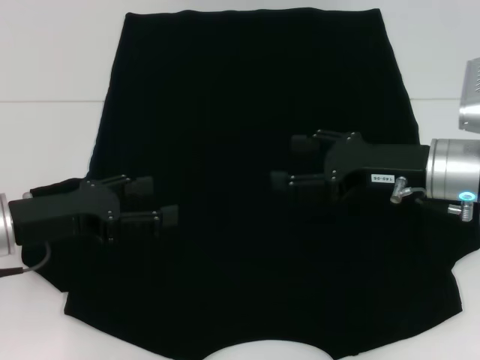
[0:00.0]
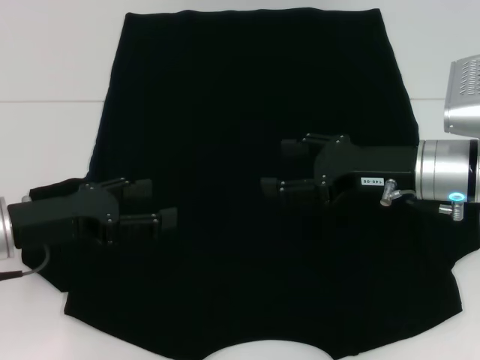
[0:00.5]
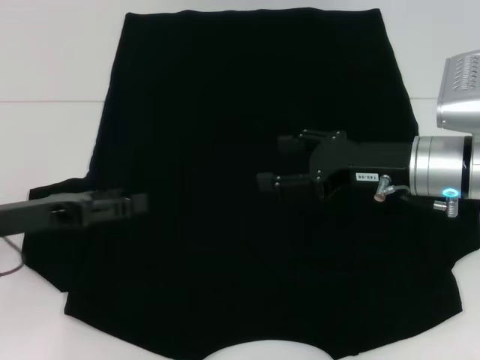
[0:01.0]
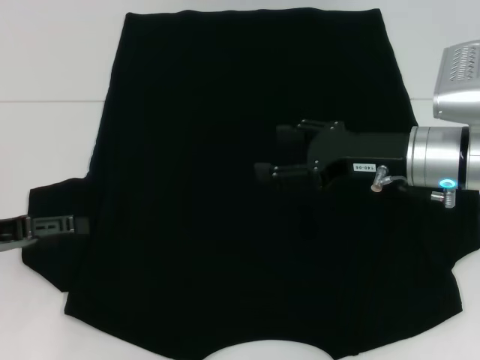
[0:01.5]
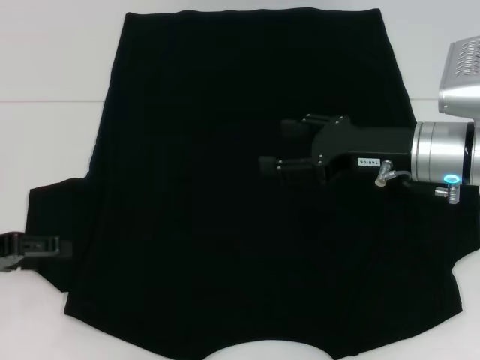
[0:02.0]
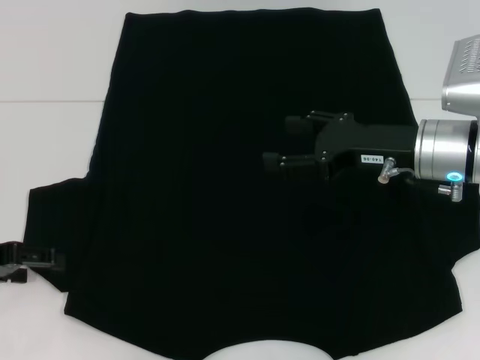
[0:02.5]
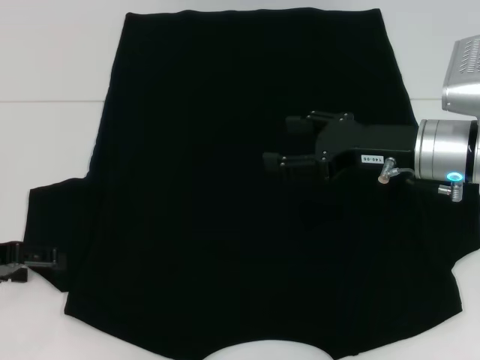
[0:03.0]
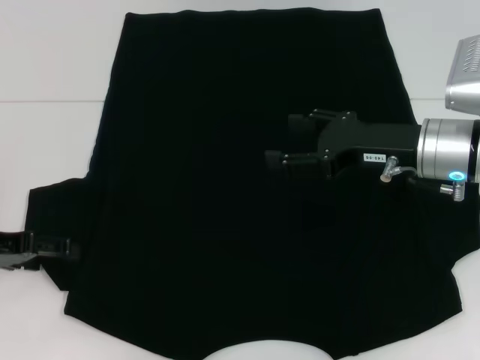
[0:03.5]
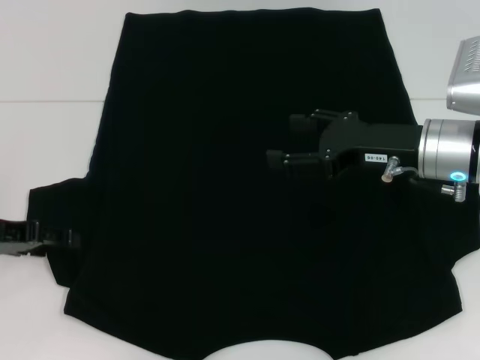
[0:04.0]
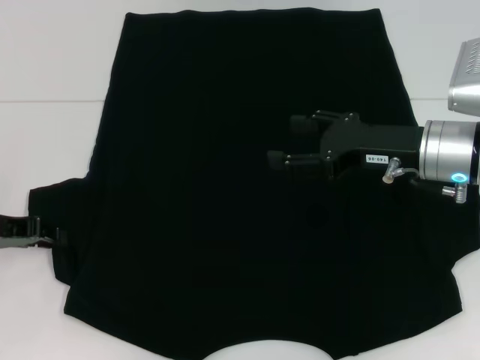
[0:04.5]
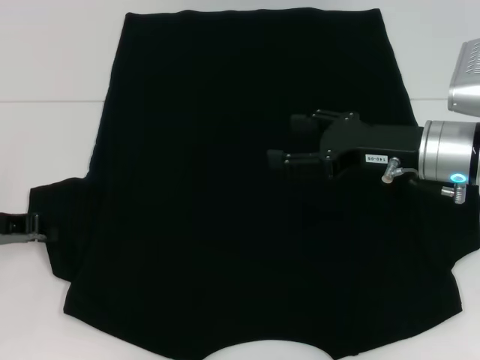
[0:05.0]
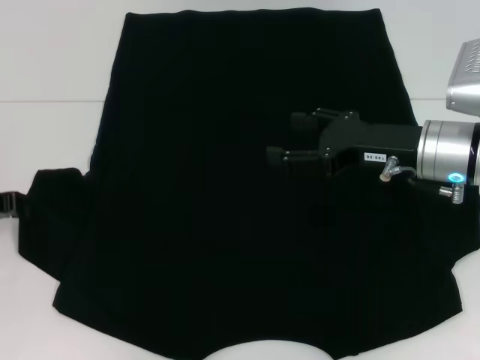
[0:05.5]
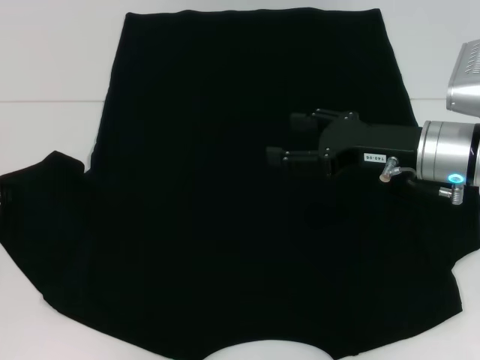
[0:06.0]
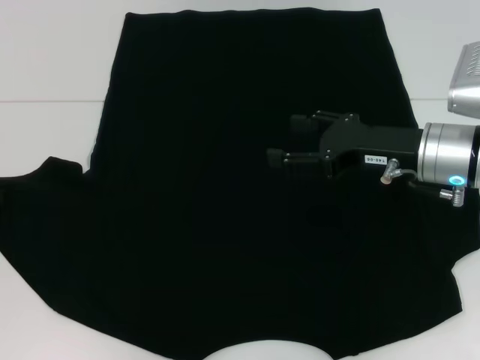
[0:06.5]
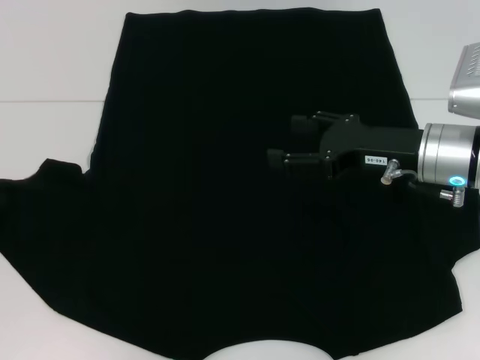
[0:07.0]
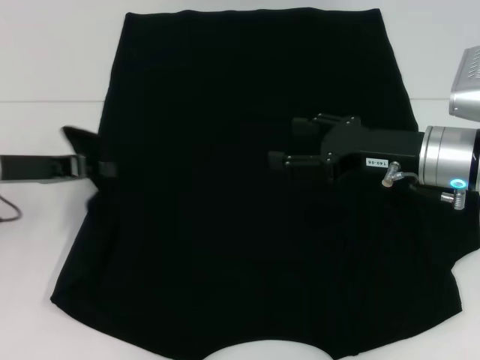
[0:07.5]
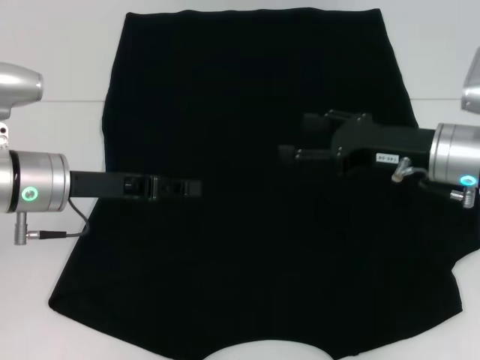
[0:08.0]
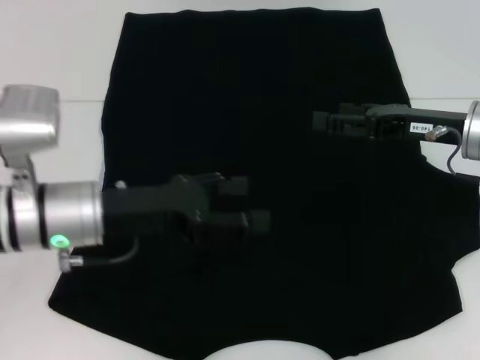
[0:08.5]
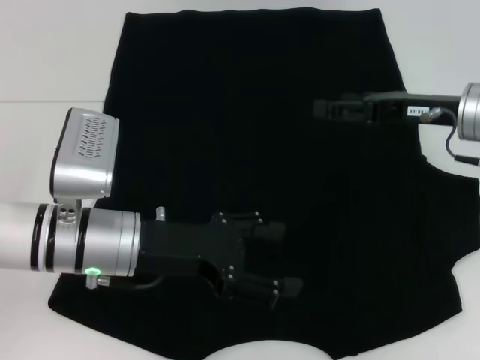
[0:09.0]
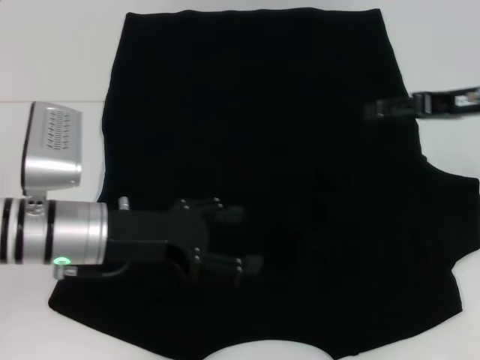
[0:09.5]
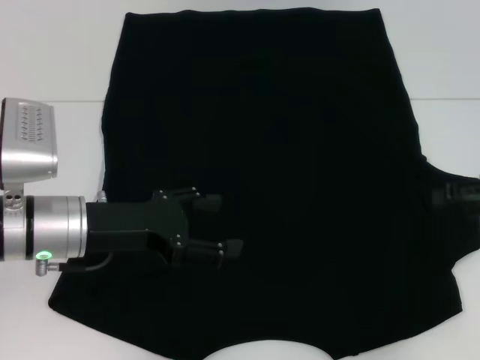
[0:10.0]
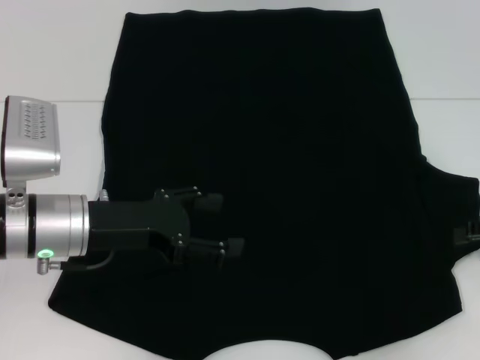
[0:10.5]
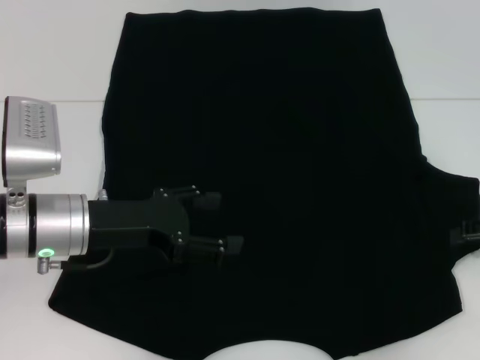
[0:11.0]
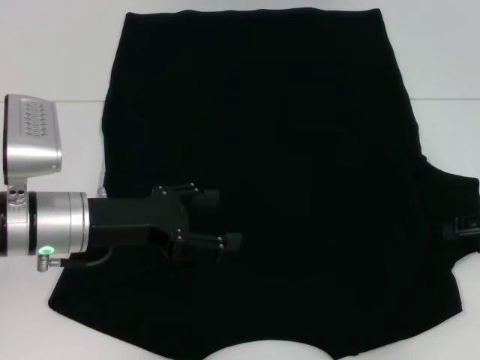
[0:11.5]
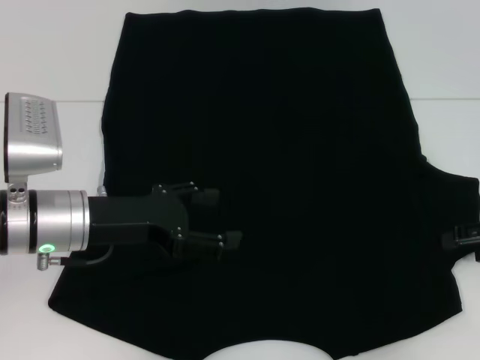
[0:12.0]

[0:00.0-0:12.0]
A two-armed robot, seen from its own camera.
Step, 0.0 to 8.0 s: Fold the bottom left sleeve with your left hand.
0.0 to 2.0 s: The left gripper travels to the left by roughly 10 cm.
2.0 to 4.0 s: The grippers stay close to where they were, moving slightly.
4.0 to 6.0 s: The left gripper closes.
6.0 to 8.0 s: The left gripper shifts approximately 15 cm to the right.
8.0 to 10.0 s: The left gripper opens up; the right gripper moves to the right, about 15 cm.
10.0 to 12.0 s: The grippers move only a little.

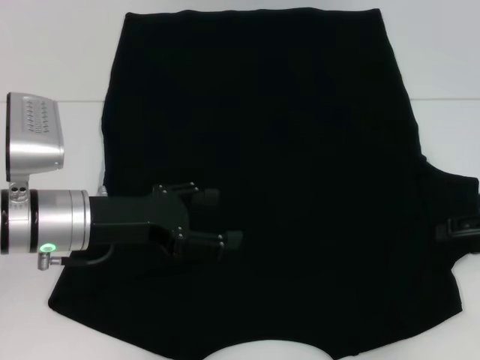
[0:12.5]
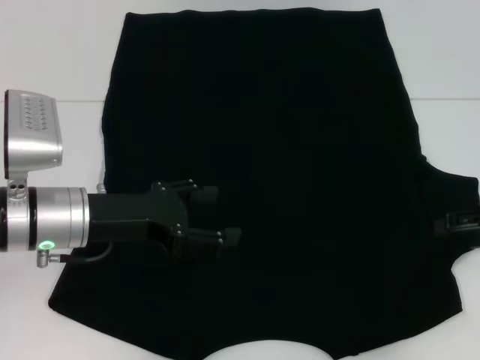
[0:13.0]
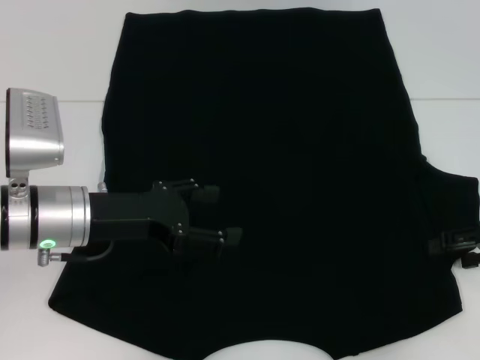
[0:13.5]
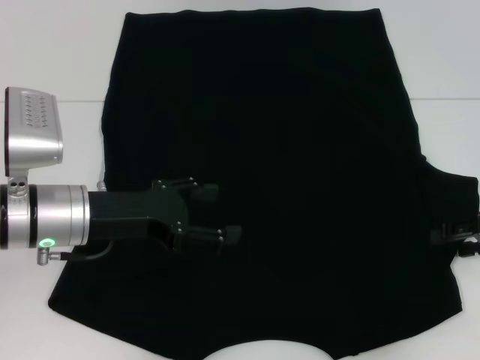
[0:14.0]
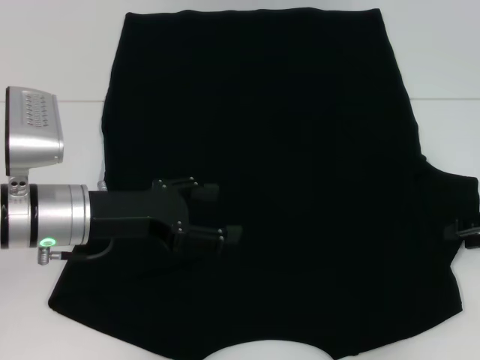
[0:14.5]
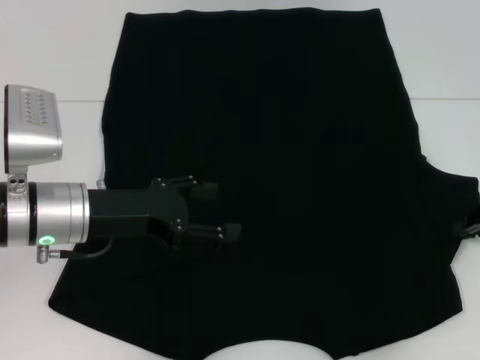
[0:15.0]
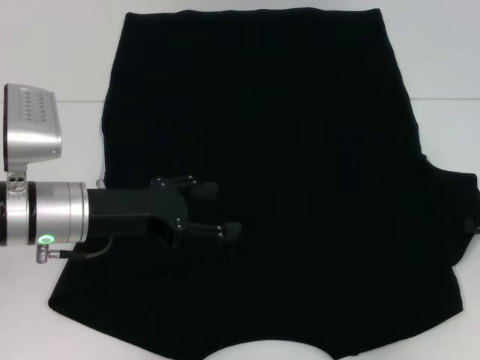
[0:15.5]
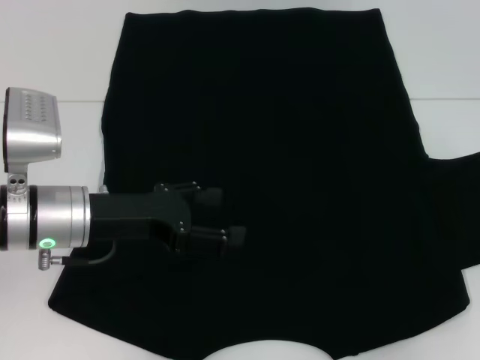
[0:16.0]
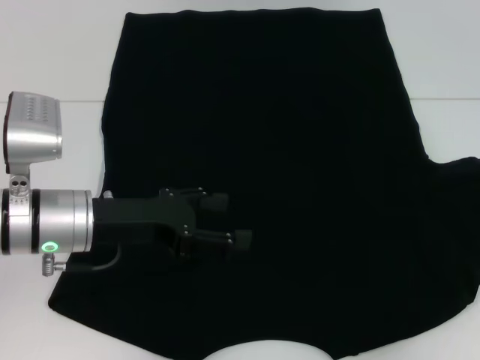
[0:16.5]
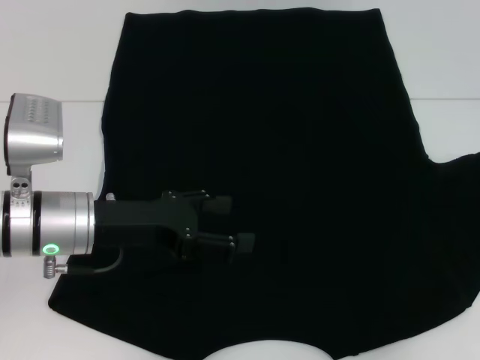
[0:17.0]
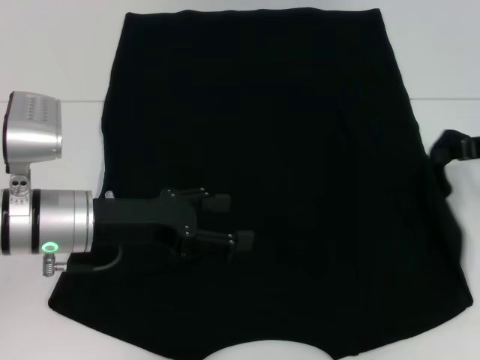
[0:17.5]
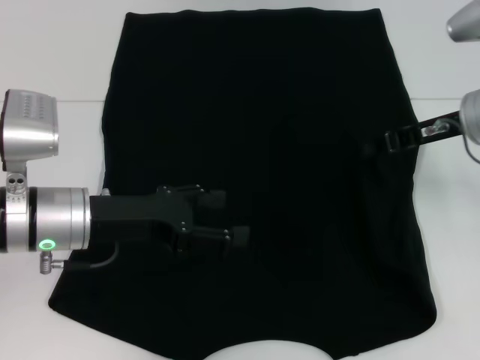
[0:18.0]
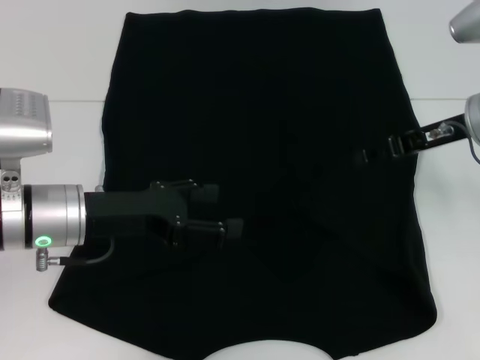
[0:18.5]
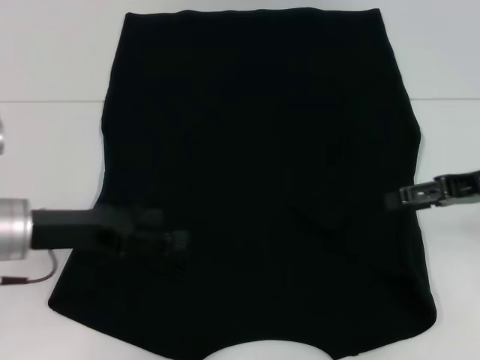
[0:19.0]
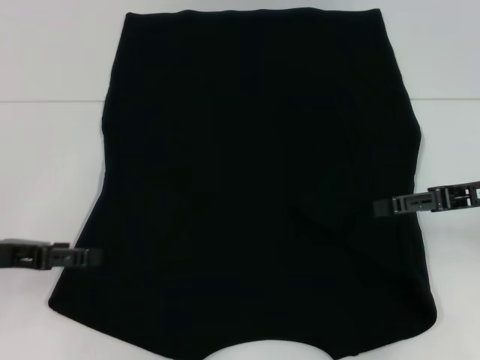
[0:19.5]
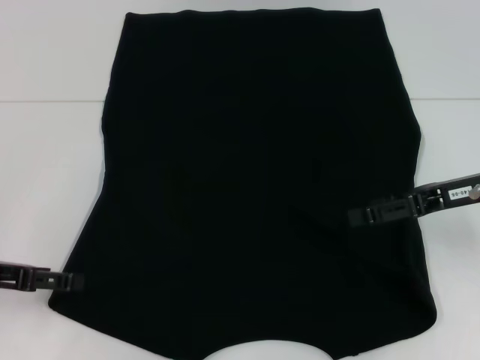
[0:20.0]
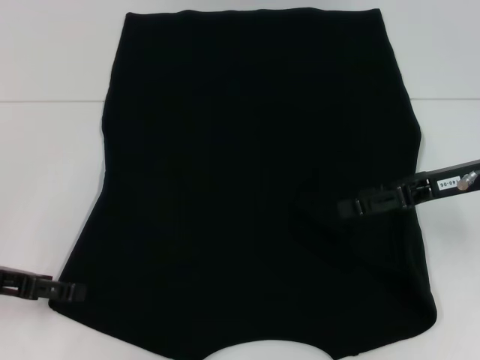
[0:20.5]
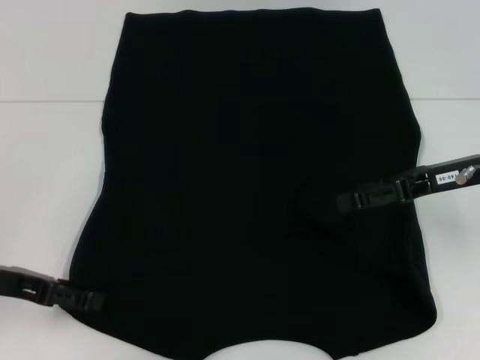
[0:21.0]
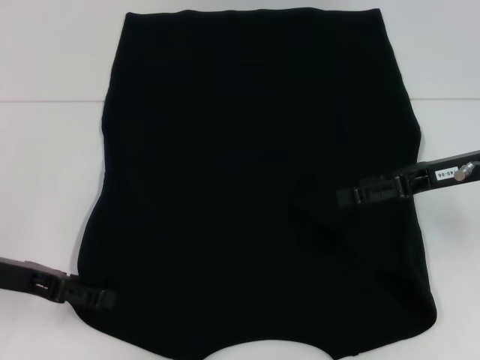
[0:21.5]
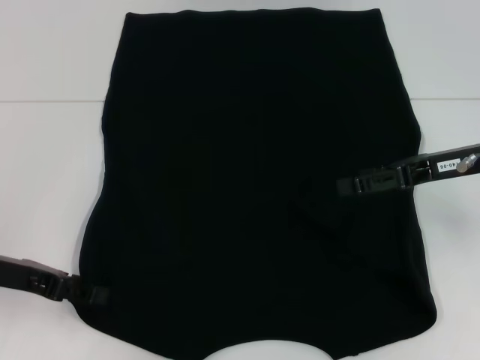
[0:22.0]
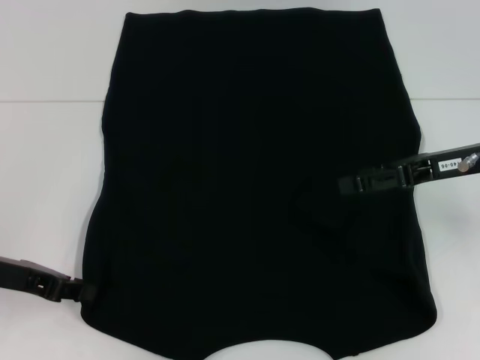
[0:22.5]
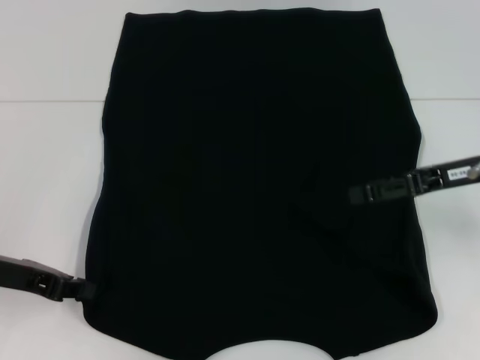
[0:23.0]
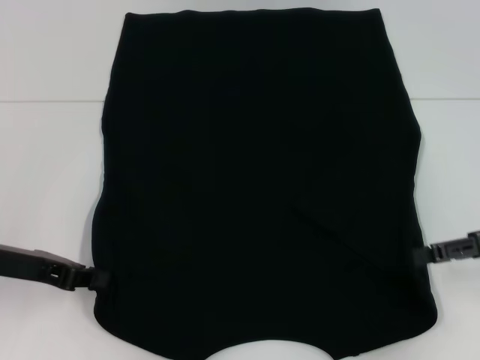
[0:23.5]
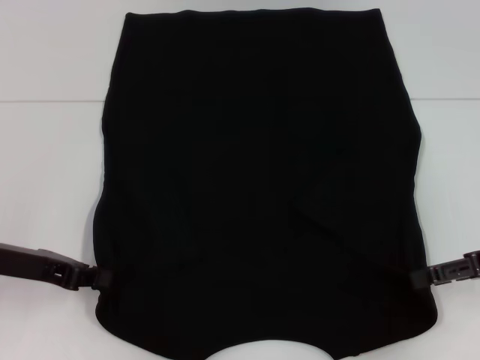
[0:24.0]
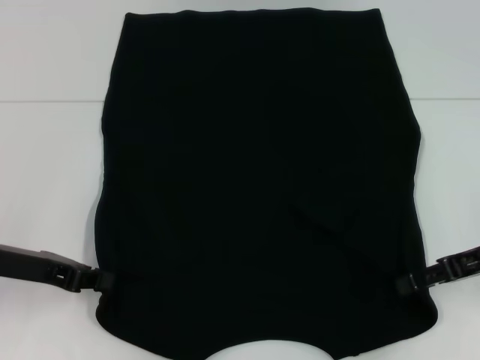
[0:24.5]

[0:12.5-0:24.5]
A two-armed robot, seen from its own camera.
Step, 12.5 to 18.5 s: Fold the bottom right sleeve with your right hand.
12.5 to 14.5 s: Neither gripper changes place.
14.5 to 16.5 s: The right gripper closes its fingers.
16.5 to 18.5 s: The right gripper shifts some 15 cm to the left, and opens up.
18.5 to 20.5 s: The left gripper shifts approximately 10 cm to the left. Meanwhile the right gripper opens.
20.5 to 22.5 s: The left gripper closes.
22.5 to 24.5 s: The right gripper changes place by about 5 cm. Meanwhile the left gripper closes up.

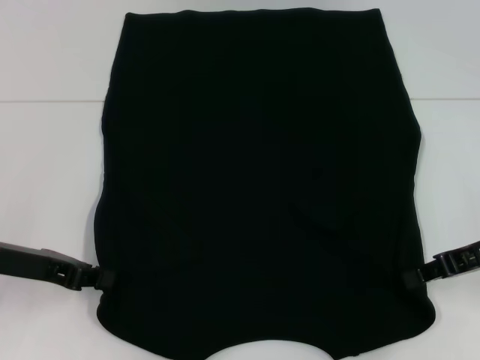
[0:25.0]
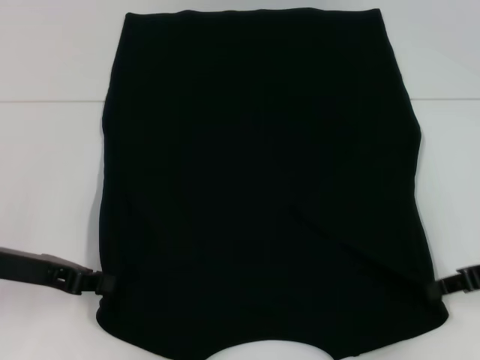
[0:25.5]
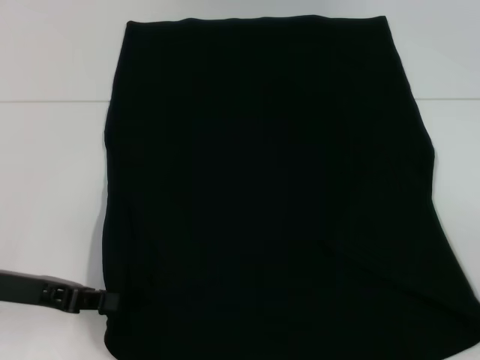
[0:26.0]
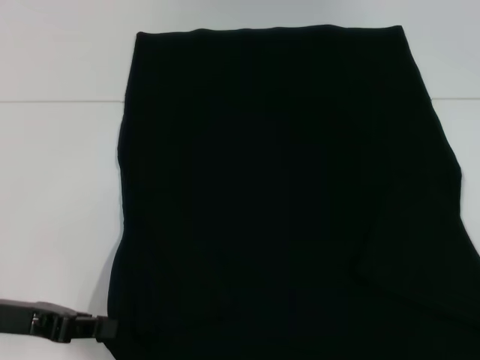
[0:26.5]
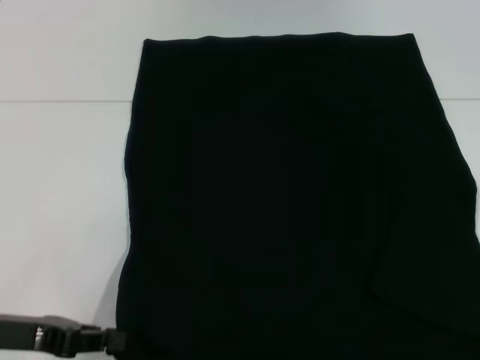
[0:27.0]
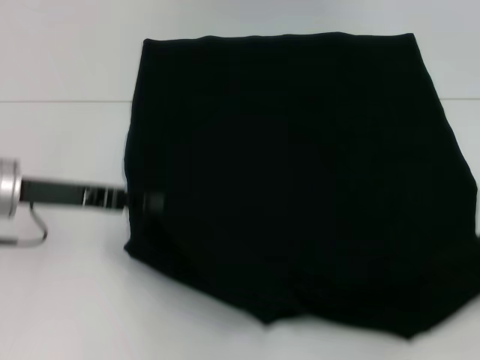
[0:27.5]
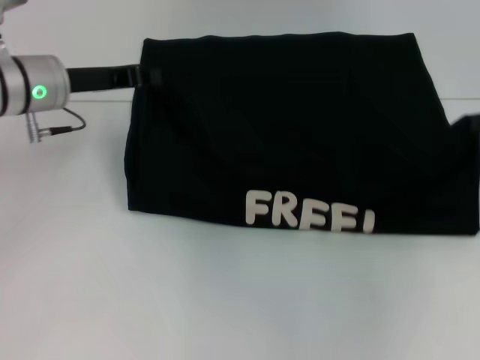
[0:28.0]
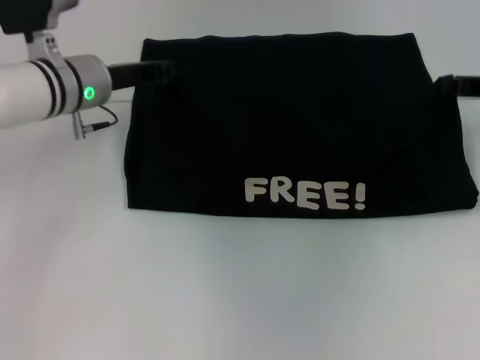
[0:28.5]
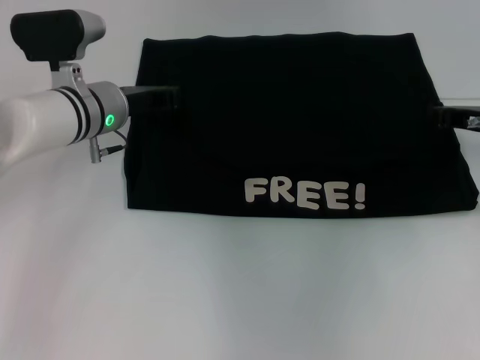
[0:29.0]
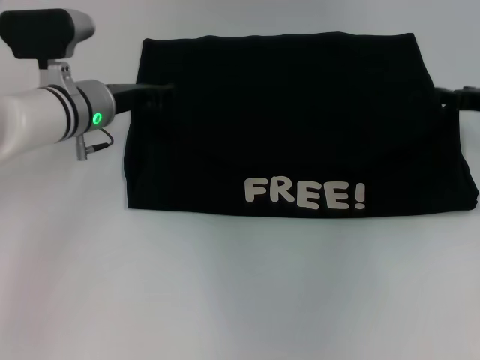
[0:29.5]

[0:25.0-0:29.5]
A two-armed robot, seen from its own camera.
25.0 to 27.0 s: The left gripper travels backward by about 5 cm, while the right gripper heads backward and to the right, covering approximately 20 cm.
27.0 to 29.5 s: The left gripper travels forward and to the right by roughly 25 cm. The right gripper travels forward and to the left by some 30 cm.
